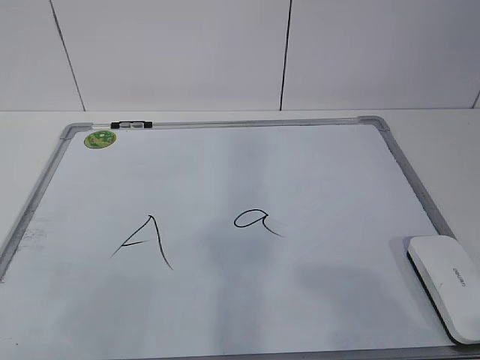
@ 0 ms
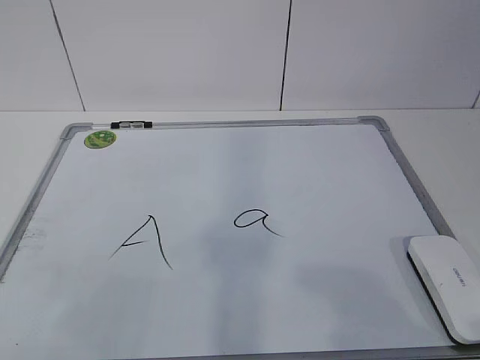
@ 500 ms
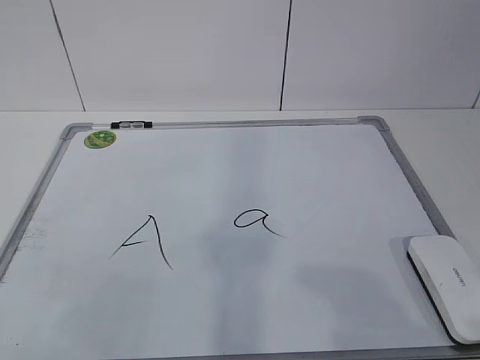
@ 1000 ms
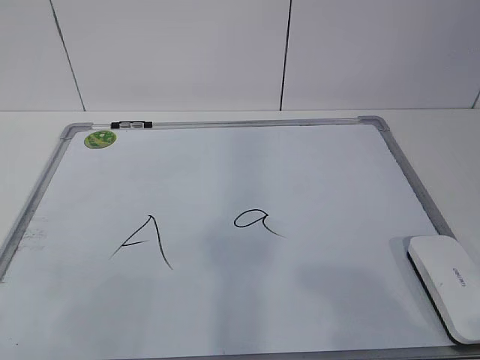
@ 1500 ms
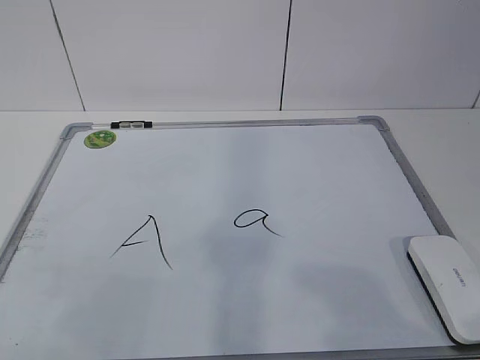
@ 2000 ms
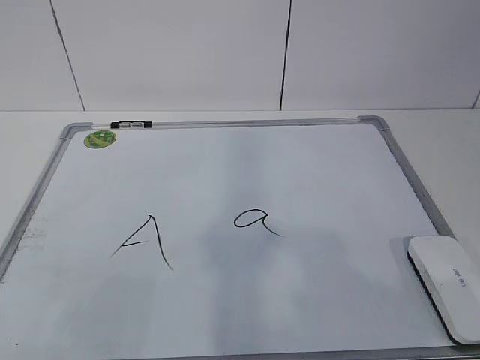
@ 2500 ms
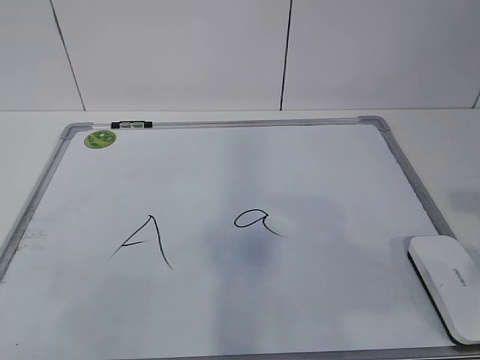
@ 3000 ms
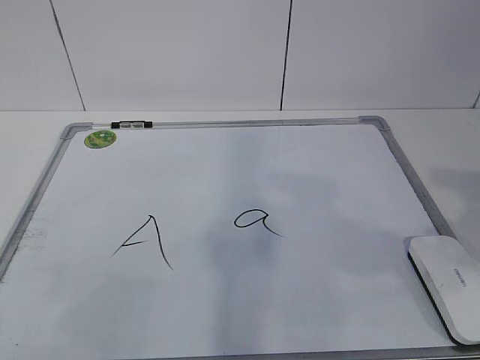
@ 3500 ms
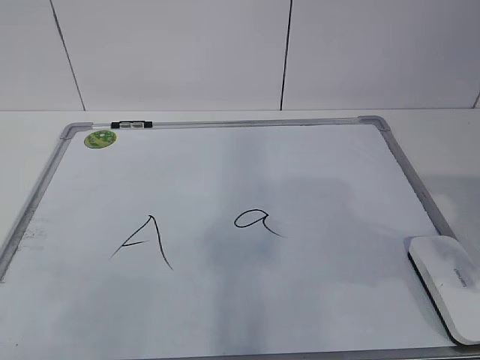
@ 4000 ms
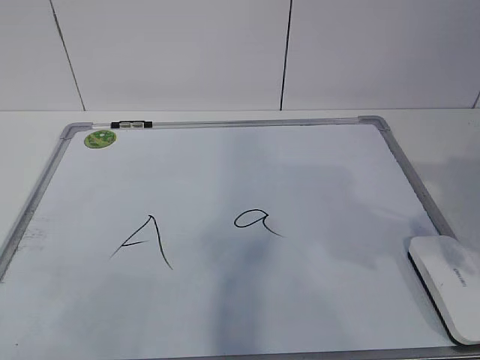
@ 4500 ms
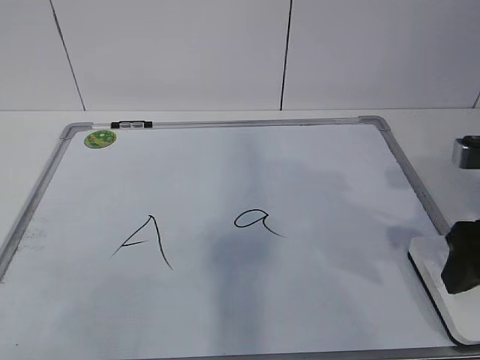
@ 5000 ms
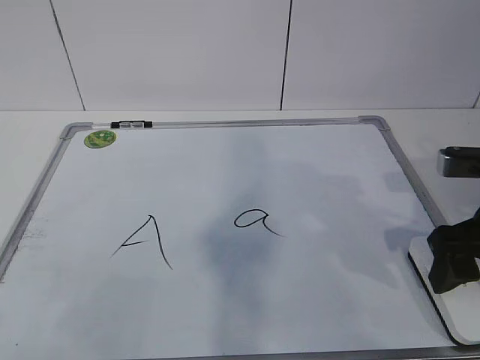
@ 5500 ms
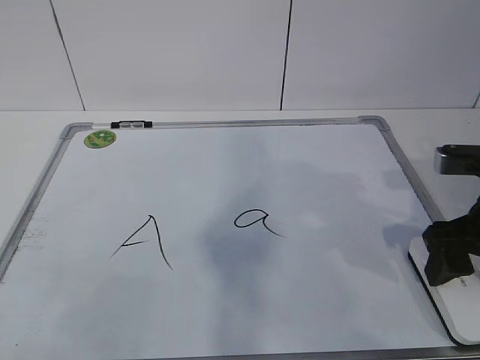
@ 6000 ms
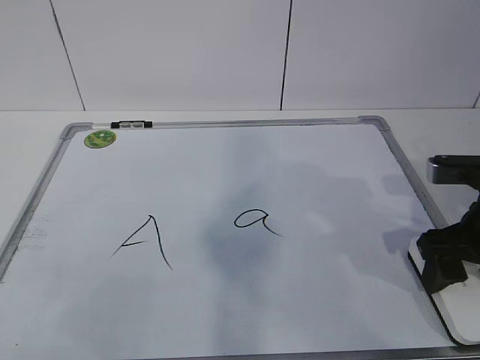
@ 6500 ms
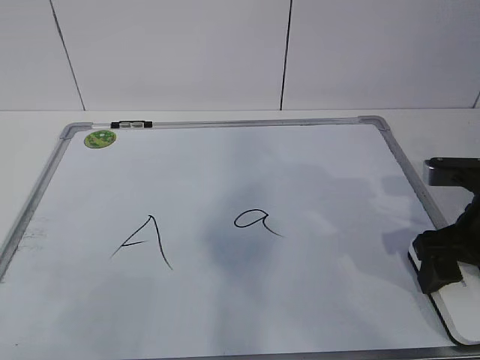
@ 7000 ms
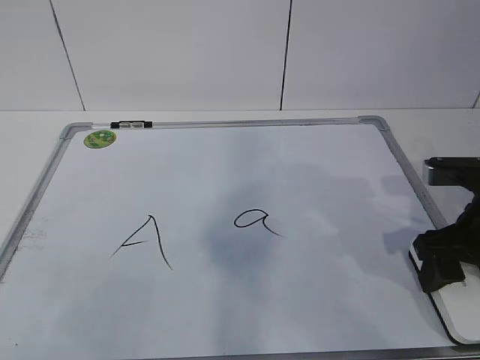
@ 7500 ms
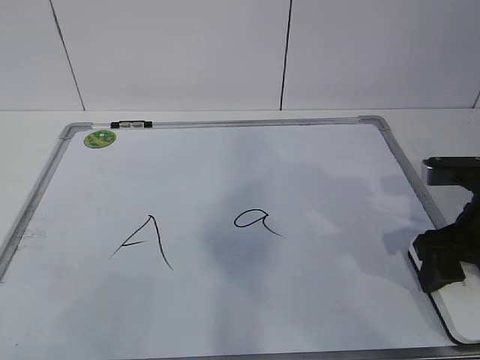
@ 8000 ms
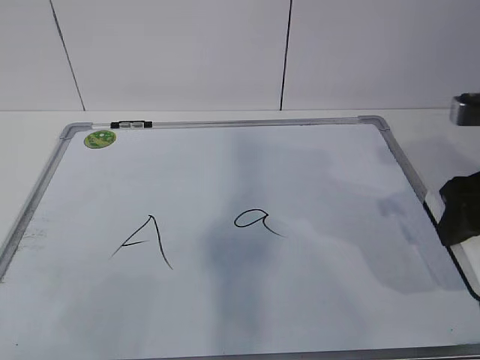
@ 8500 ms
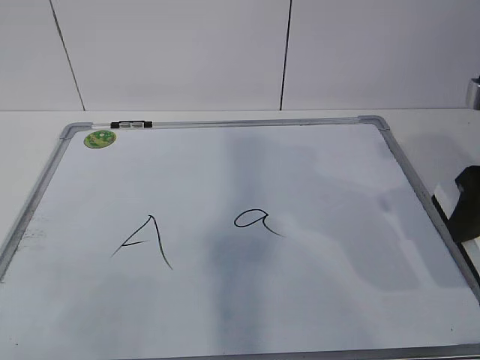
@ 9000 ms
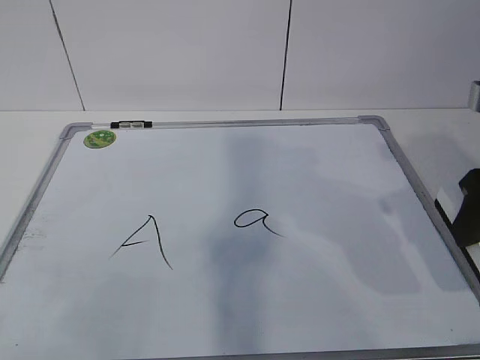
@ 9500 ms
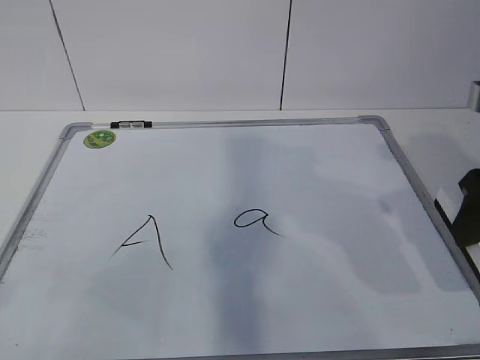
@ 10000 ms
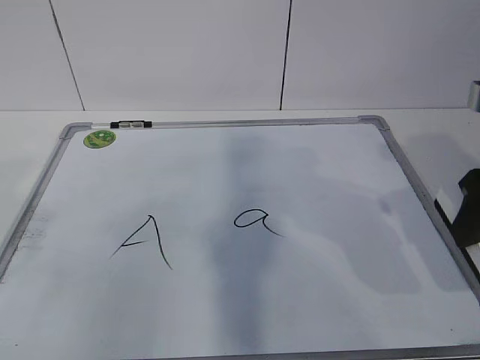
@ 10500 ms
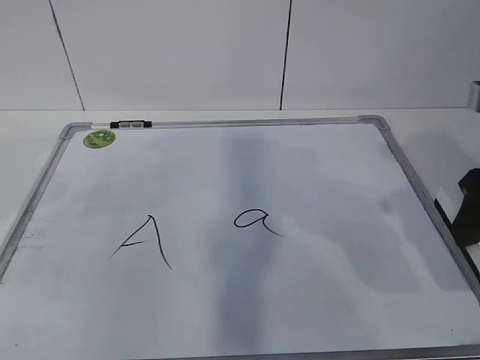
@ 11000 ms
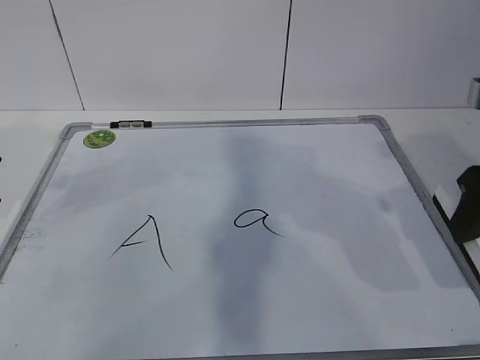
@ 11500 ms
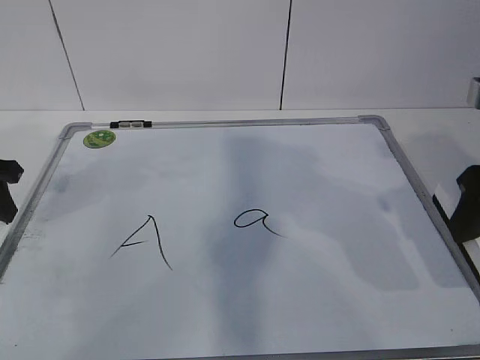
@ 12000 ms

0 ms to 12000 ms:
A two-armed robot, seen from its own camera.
Task of the whole recording: pick up the eraser on the blackboard and erase the letter "a".
Step, 0 ms to 6500 ms: Grab the eraser with your right hand.
Step, 7000 ms to 10500 ms: Hold the drawing board steady with your left hand.
2000 ms to 4000 ms: The right gripper shifts roughly 15 cm forward.
4000 ms to 6000 ms: The right gripper travels forward and downward by some 15 cm.
6000 ms to 8000 ms: The right gripper closes its fingers.
8000 ms to 10000 ms: The right gripper heads upward, covering some 10 cm.
10000 ms to 12000 ms: The left gripper moves forward, about 30 cm.

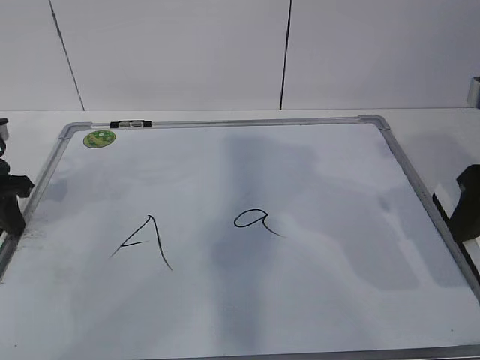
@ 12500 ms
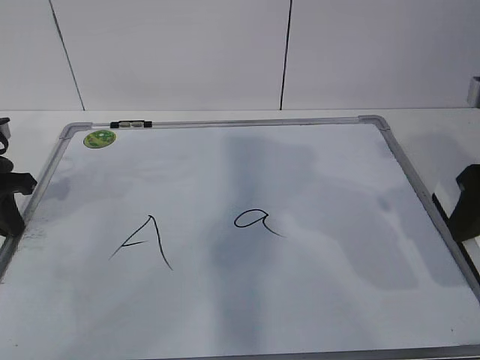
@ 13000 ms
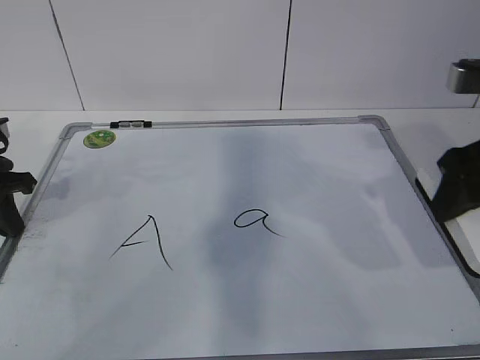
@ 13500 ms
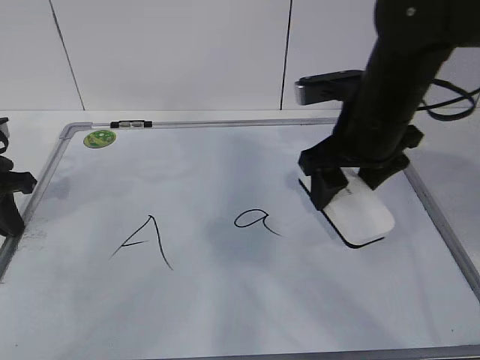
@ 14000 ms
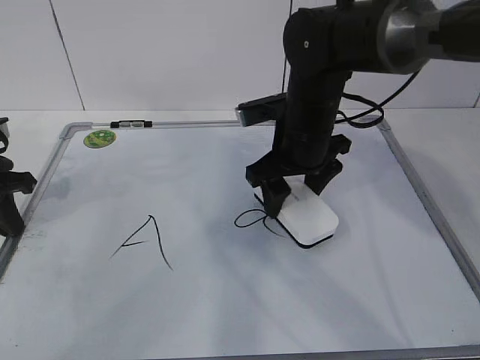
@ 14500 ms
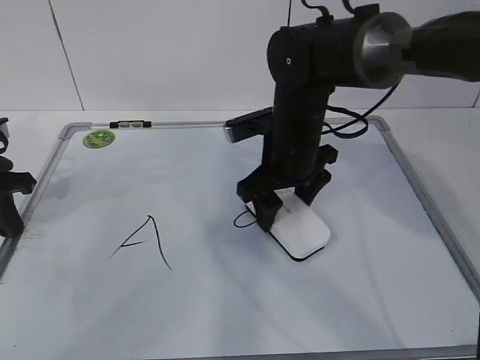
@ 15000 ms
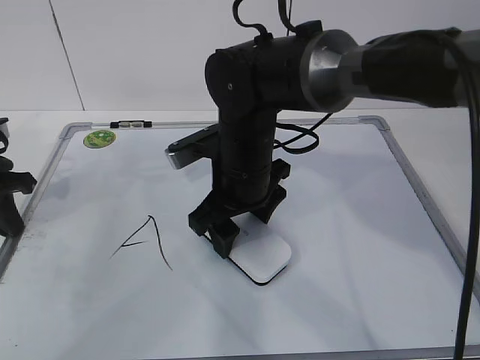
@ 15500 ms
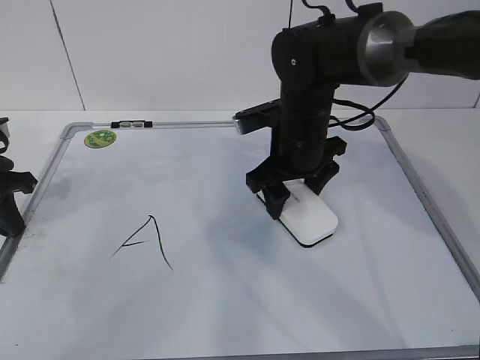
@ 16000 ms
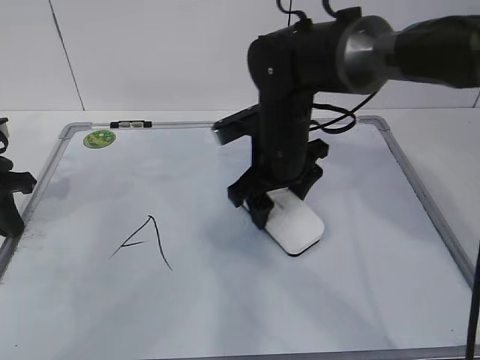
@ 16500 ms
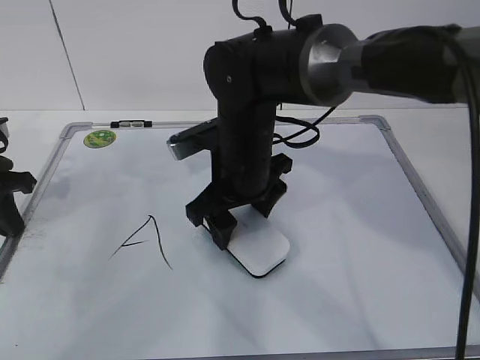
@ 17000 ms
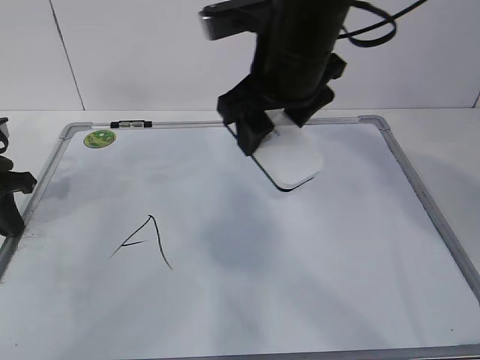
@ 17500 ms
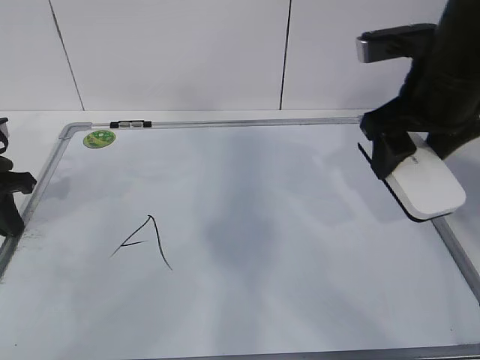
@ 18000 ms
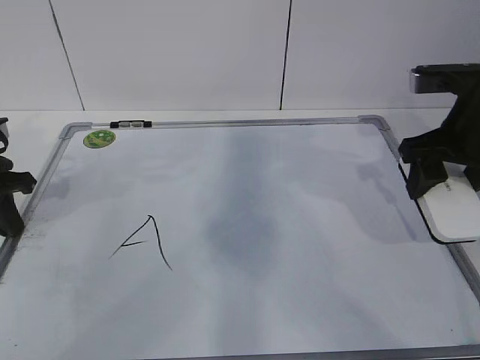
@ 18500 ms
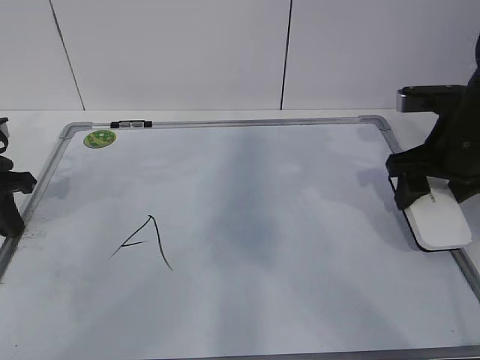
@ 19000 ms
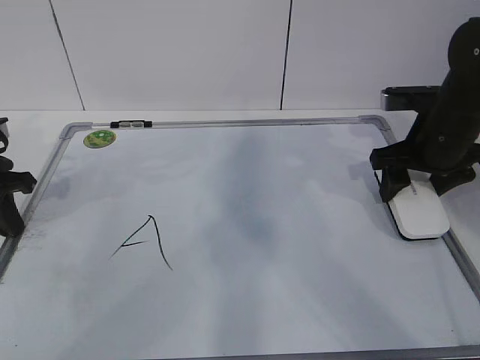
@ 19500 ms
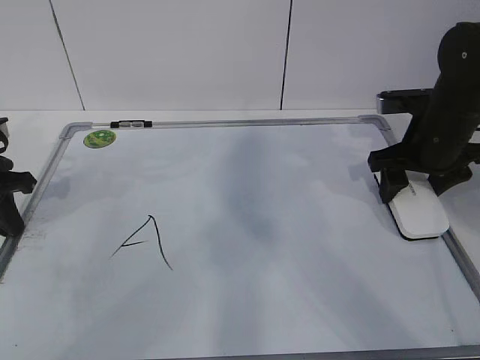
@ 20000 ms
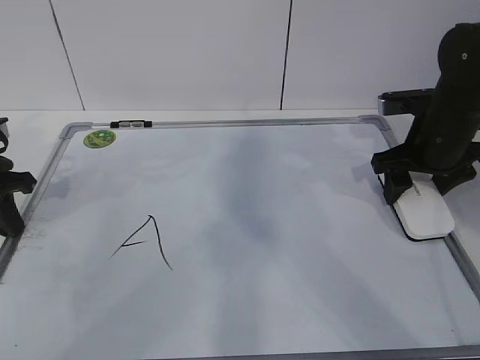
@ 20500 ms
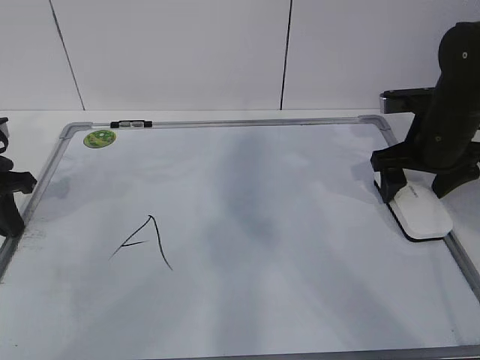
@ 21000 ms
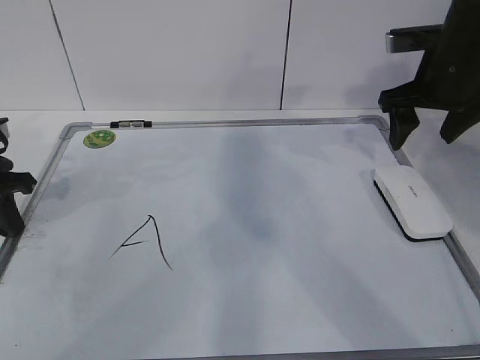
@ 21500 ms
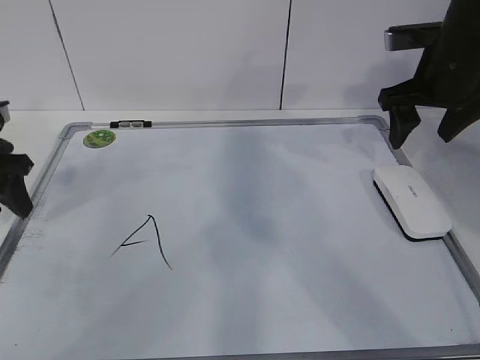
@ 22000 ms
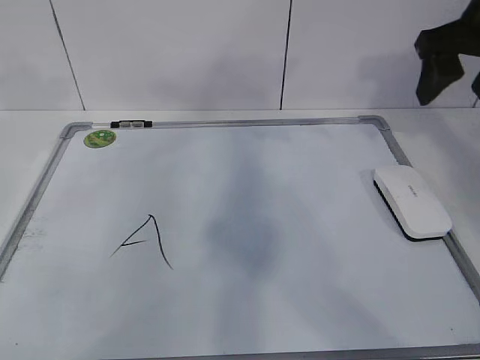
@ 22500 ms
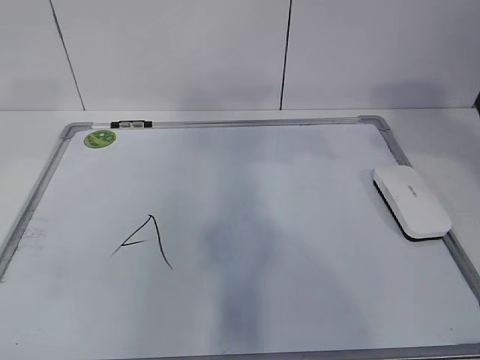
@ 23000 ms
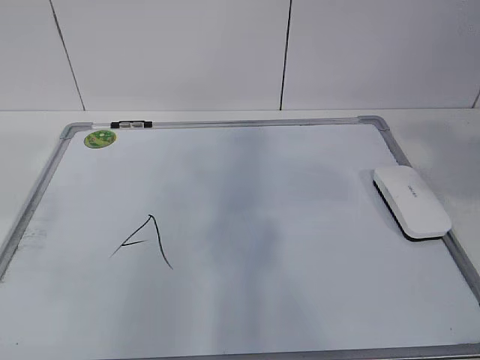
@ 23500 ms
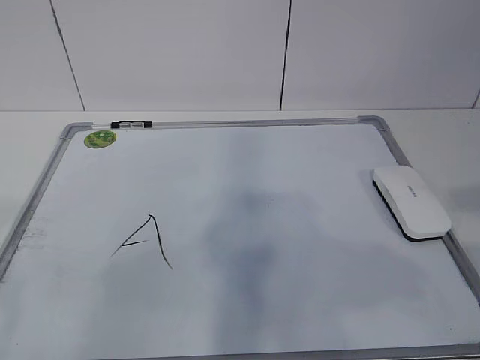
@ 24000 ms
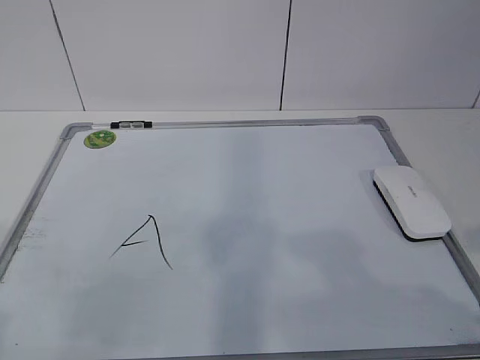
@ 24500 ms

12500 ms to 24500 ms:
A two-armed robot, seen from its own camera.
Task of the whole recording: pick up the eraser on the blackboard and erase the letter "a".
Step, 12500 ms to 14000 ms: Erase the letter a with your right hand.
Step, 14500 ms to 17000 ms: Put down the eraser with your right hand.
12500 ms to 14500 ms: The right gripper heads to the left, forward and downward, covering about 25 cm; the left gripper closes its fingers.
16500 ms to 18500 ms: The right gripper travels to the right by about 20 cm.
18500 ms to 20500 ms: The right gripper goes about 10 cm forward and downward.
20500 ms to 22500 ms: Both grippers move upward, roughly 15 cm. The right gripper opens its fingers, while the left gripper opens its fingers.
22500 ms to 24500 ms: The right gripper heads backward, covering approximately 30 cm.

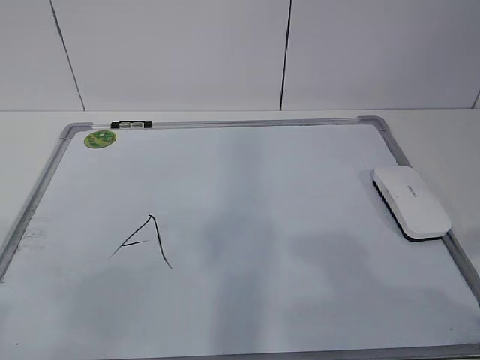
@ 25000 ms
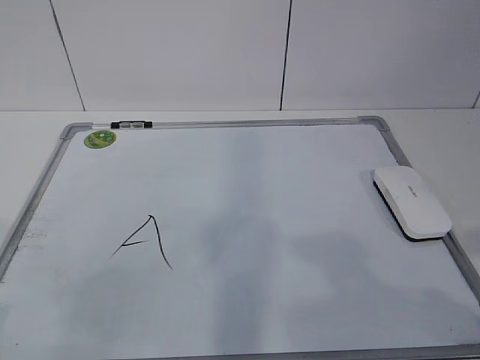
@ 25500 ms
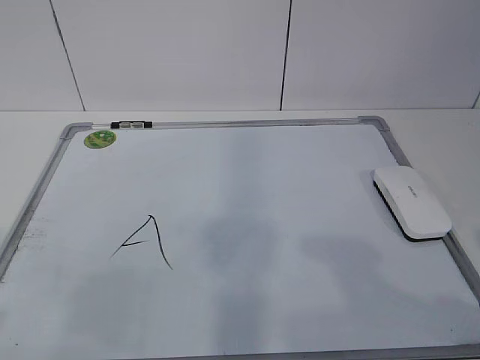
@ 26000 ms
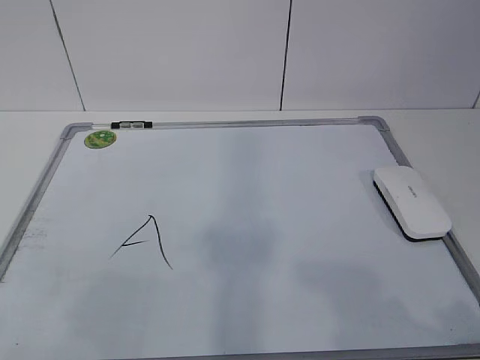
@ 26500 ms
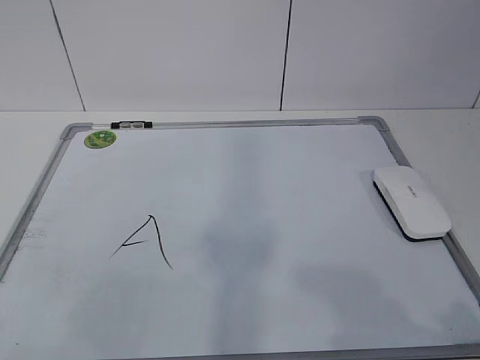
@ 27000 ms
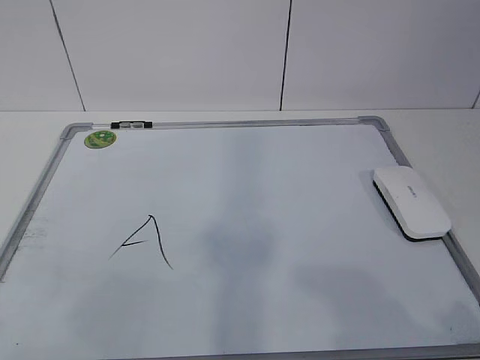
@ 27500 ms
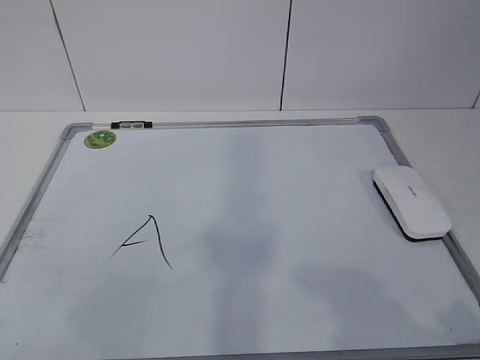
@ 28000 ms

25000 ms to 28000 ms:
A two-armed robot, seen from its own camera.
Task of the whole recording: pick up the eraser on the blackboard and erase the letter "a".
26500 ms to 28000 ms: Neither gripper changes place.
